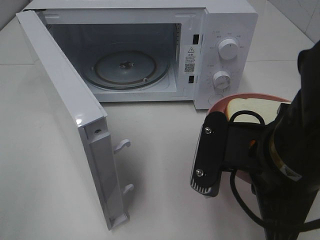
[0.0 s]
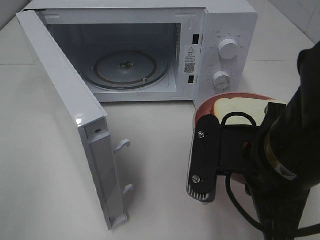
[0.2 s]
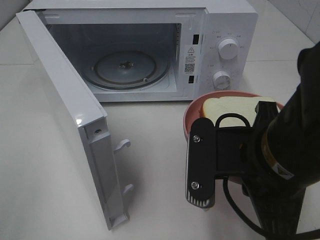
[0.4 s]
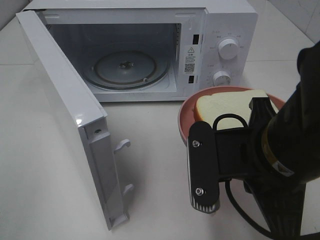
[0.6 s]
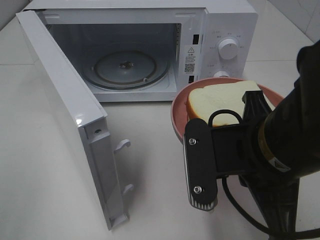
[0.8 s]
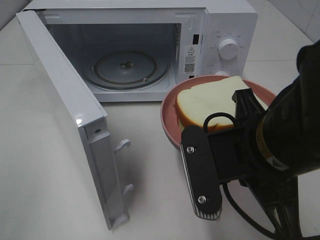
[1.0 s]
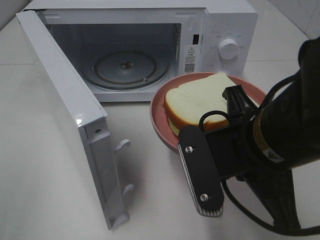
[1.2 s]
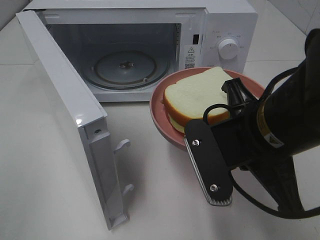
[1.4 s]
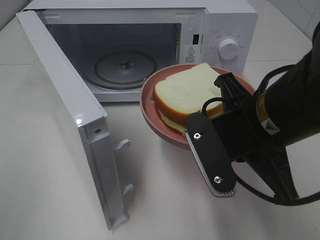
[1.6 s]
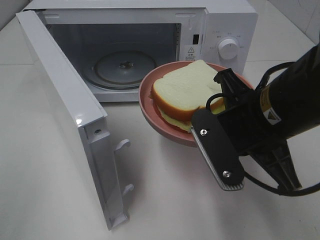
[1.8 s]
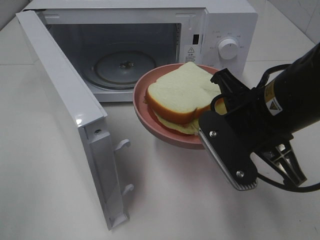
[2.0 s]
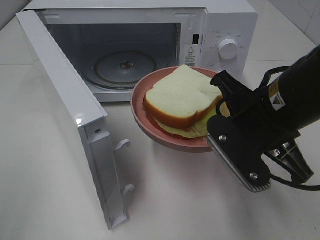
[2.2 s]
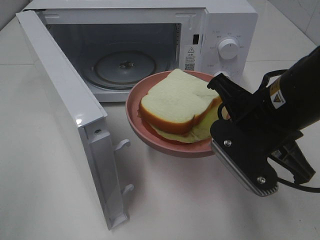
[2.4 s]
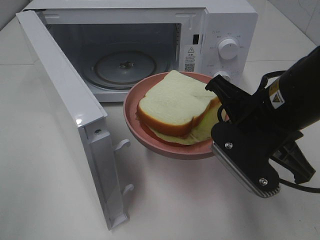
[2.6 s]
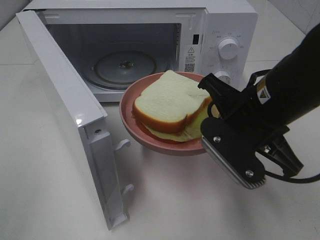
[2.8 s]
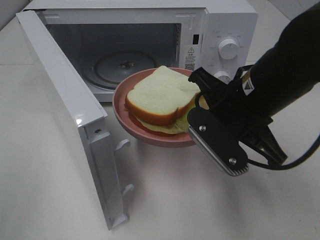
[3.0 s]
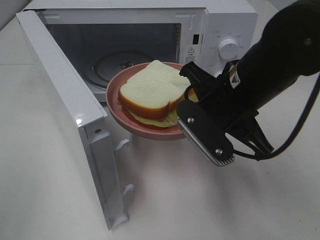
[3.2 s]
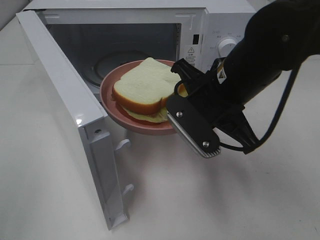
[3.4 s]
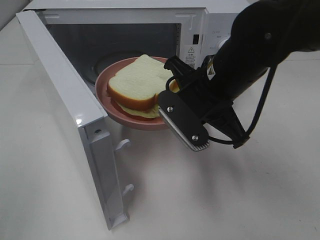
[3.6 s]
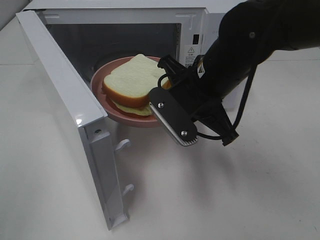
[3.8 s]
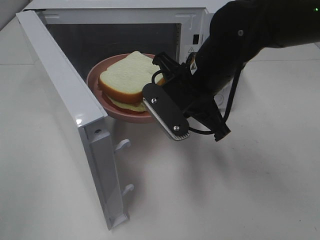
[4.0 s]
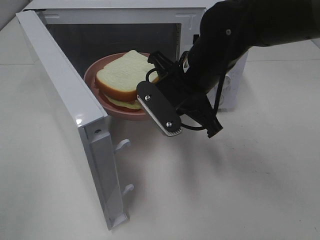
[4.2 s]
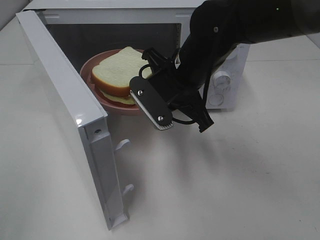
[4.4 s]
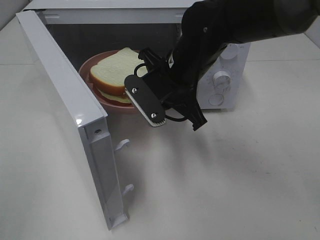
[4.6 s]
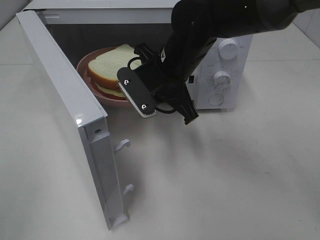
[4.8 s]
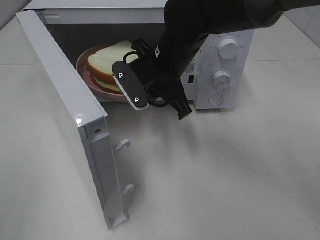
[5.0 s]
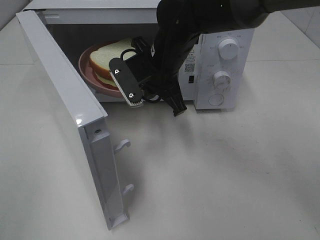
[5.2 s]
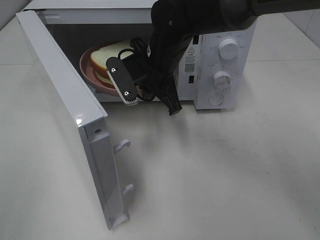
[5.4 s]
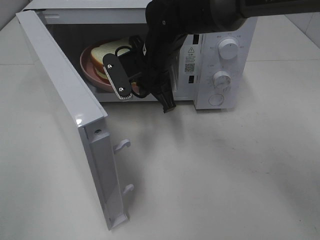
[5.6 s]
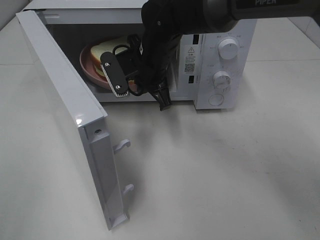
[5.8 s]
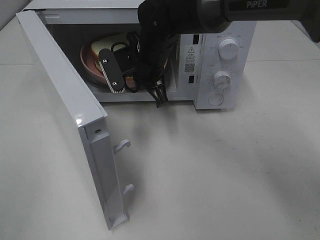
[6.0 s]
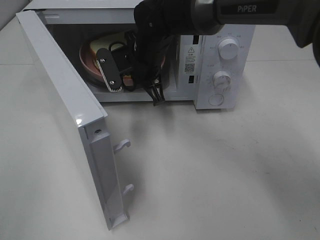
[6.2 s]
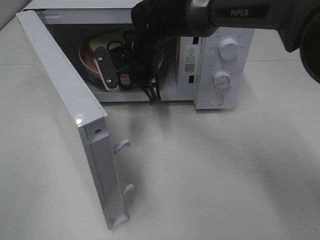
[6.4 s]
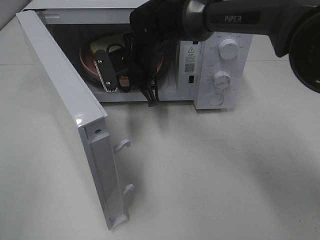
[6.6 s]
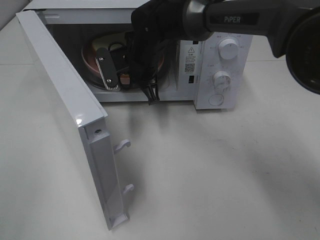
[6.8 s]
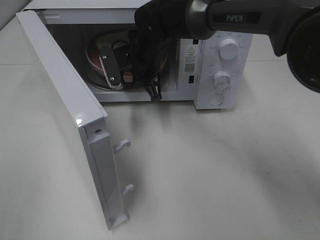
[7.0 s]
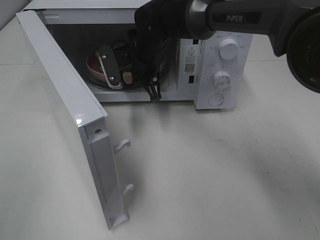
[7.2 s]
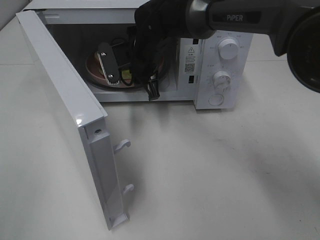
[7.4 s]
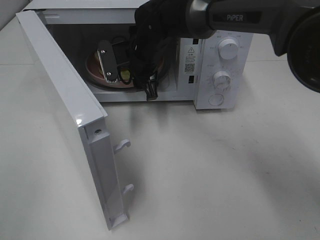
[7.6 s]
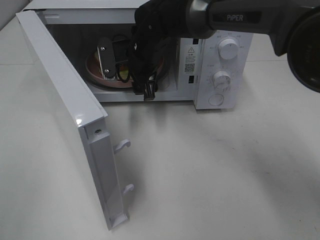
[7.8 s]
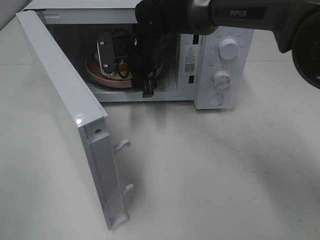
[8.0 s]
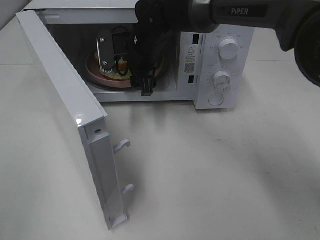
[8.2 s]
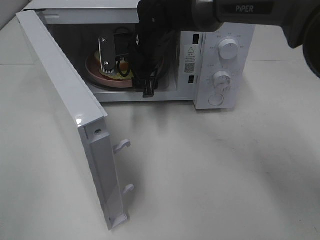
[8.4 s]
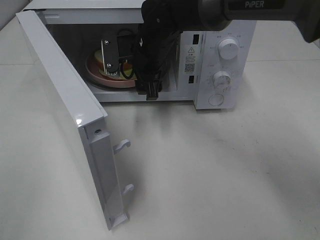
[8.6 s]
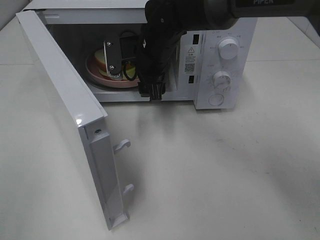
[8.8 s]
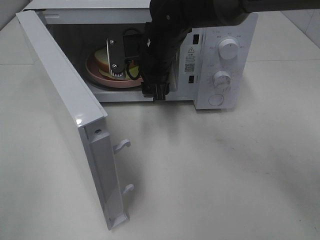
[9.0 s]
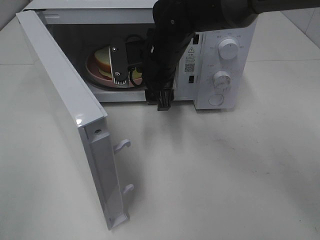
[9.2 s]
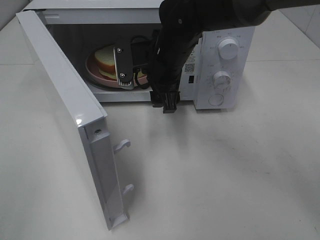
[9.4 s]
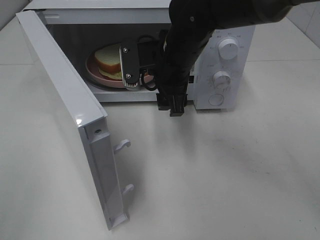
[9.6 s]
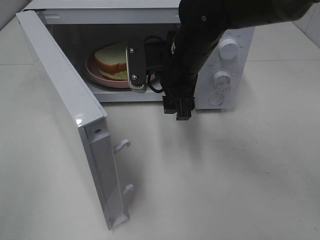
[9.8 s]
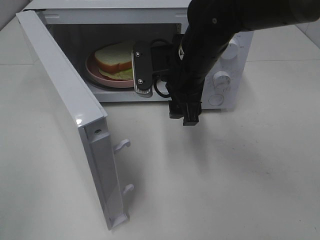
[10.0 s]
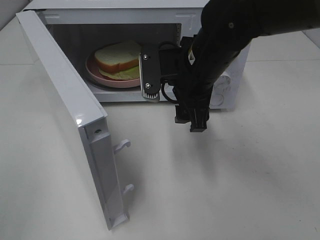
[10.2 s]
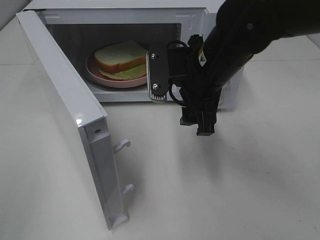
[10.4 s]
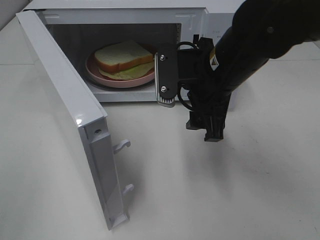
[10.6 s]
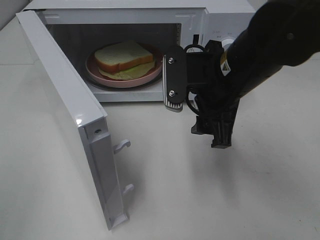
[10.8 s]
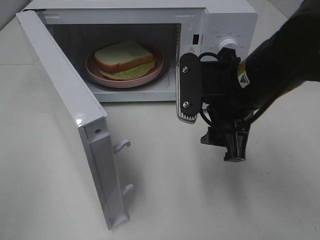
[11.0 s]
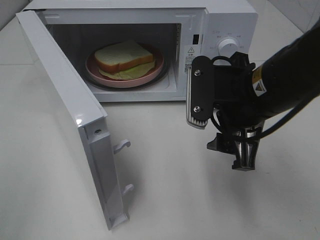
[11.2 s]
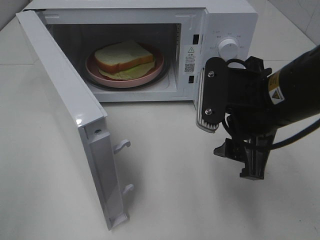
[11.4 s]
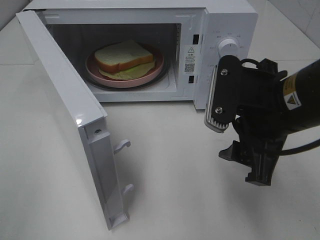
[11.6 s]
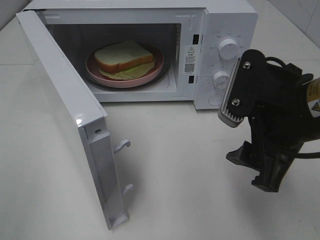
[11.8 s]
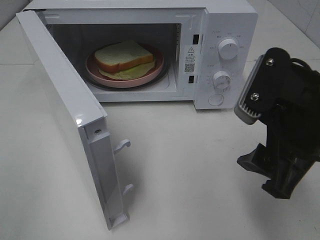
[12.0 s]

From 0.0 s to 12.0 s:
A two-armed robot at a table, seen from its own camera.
Task of the whole recording: Heat Sandwich.
Step, from 0.0 s to 8.6 s: Right hand: place the plate in the microwave.
From 3.0 s to 4.4 s: The right gripper goes approximately 10 cm forward and to the left.
From 4.4 s to 6.0 s: The right gripper heads forward and to the left, covering approximately 10 cm.
From 6.0 s to 7.6 s: The right gripper opens up.
From 7.6 s to 9.0 s: The grippers make only small movements.
From 9.0 s to 10.4 s: The right gripper moves backward and to the right, roughly 10 cm.
From 10.4 s to 12.0 s: The right gripper is displaced backward and to the right by roughly 15 cm.

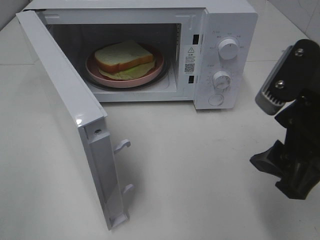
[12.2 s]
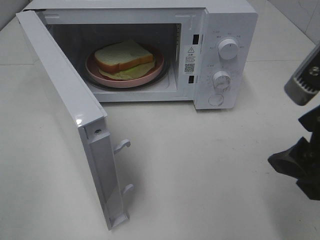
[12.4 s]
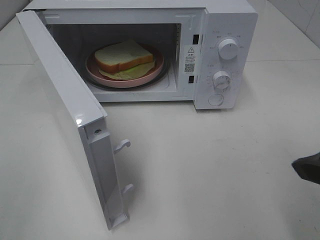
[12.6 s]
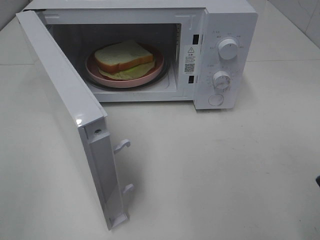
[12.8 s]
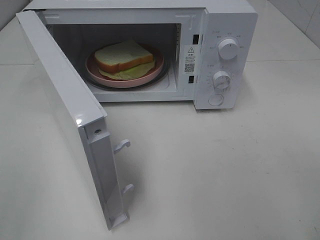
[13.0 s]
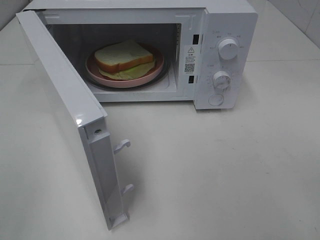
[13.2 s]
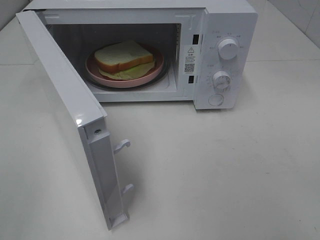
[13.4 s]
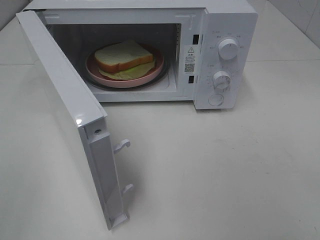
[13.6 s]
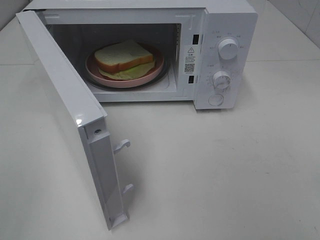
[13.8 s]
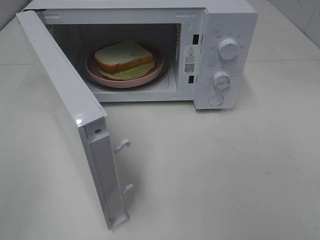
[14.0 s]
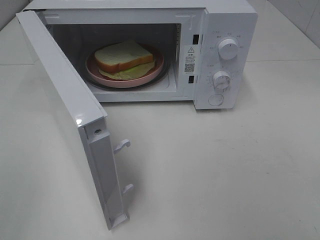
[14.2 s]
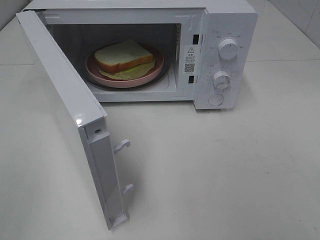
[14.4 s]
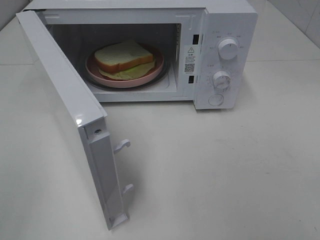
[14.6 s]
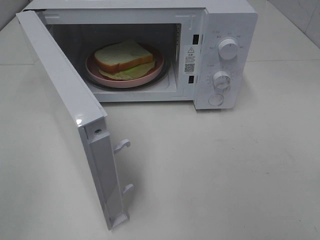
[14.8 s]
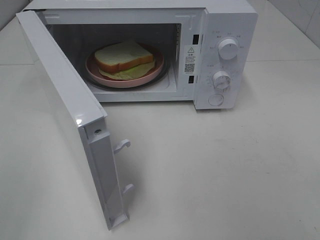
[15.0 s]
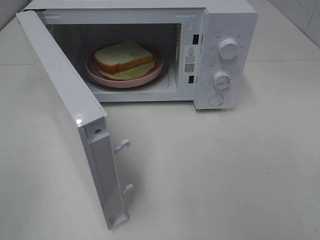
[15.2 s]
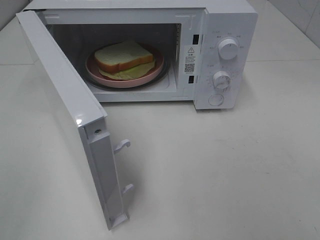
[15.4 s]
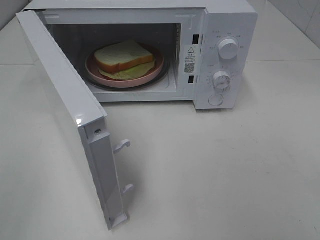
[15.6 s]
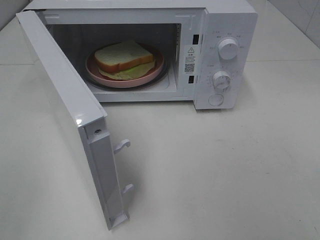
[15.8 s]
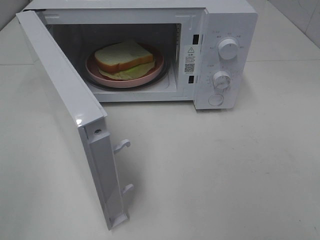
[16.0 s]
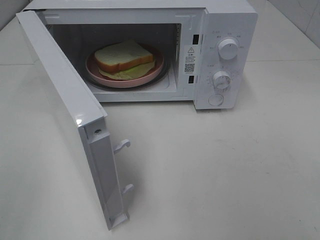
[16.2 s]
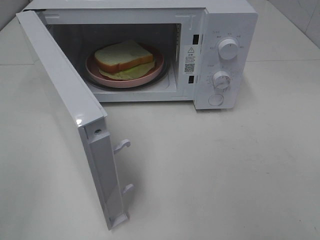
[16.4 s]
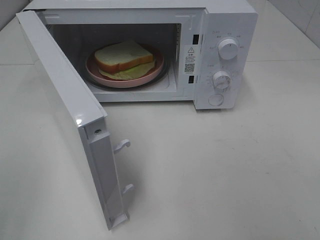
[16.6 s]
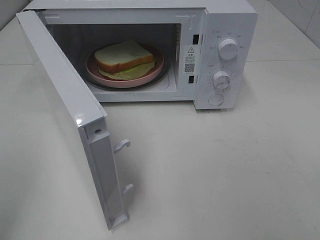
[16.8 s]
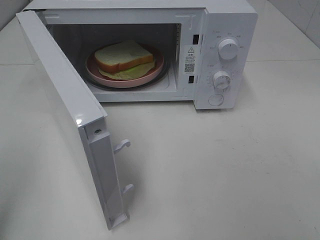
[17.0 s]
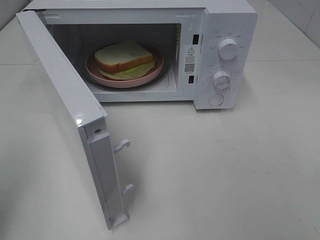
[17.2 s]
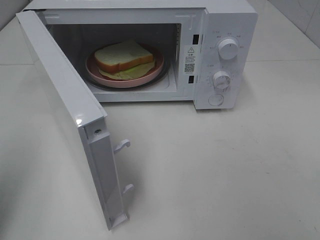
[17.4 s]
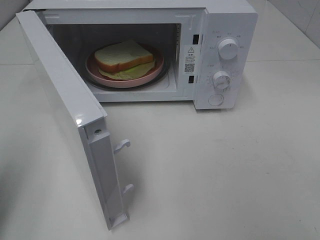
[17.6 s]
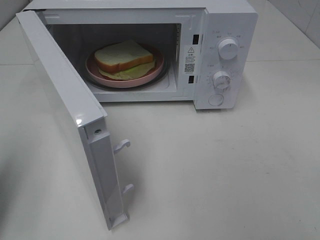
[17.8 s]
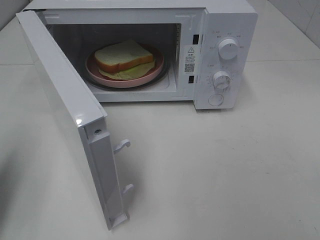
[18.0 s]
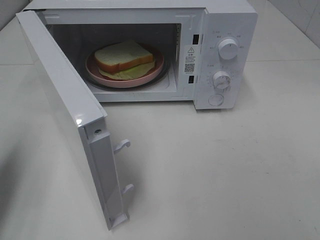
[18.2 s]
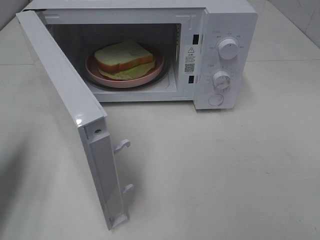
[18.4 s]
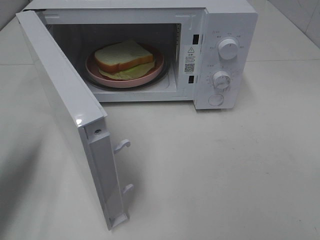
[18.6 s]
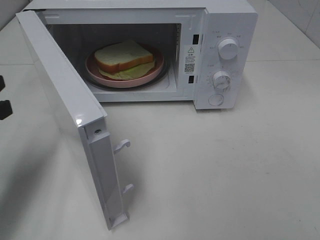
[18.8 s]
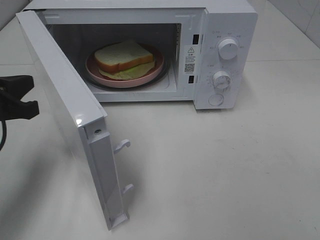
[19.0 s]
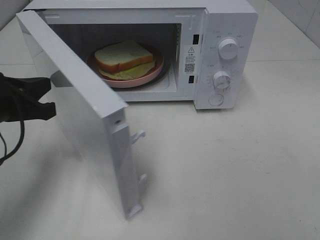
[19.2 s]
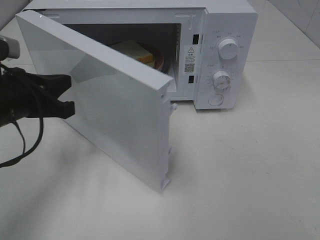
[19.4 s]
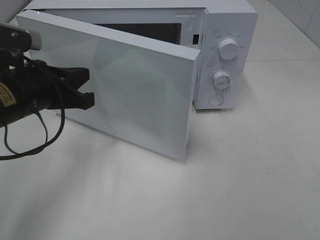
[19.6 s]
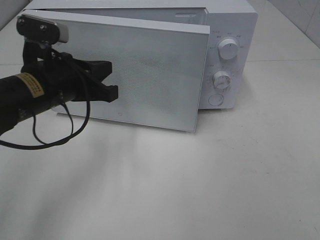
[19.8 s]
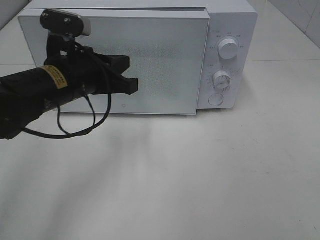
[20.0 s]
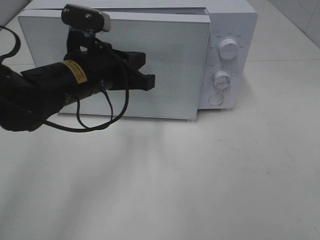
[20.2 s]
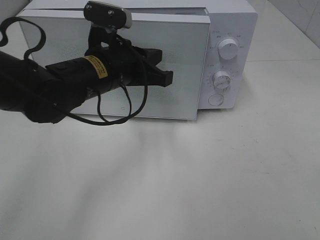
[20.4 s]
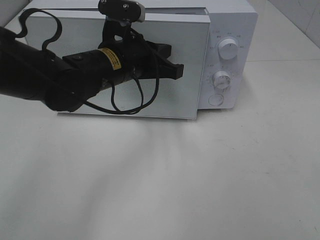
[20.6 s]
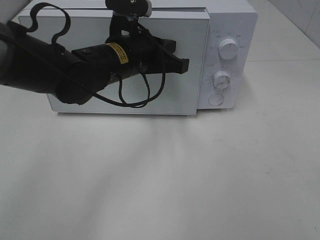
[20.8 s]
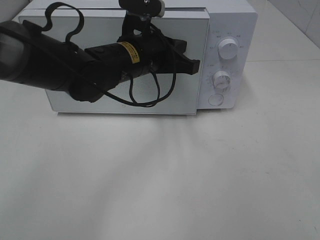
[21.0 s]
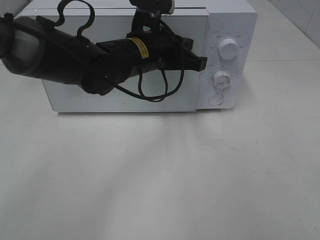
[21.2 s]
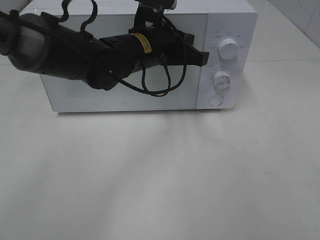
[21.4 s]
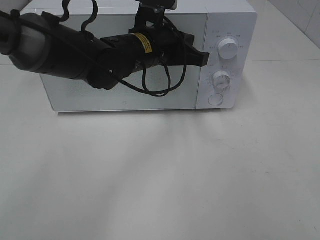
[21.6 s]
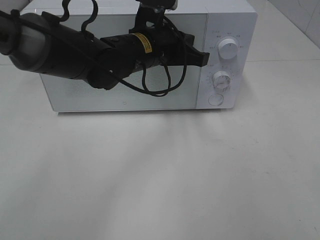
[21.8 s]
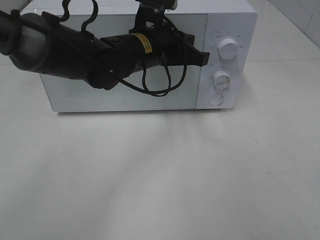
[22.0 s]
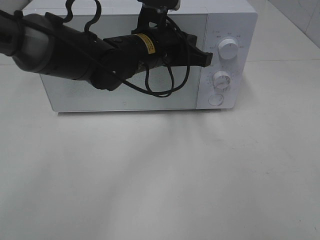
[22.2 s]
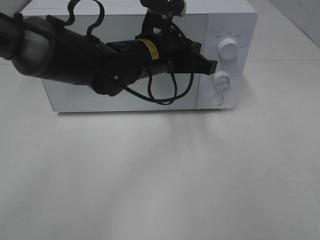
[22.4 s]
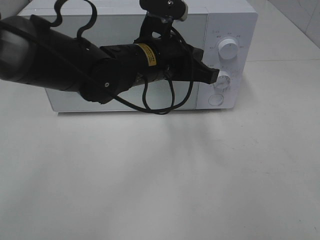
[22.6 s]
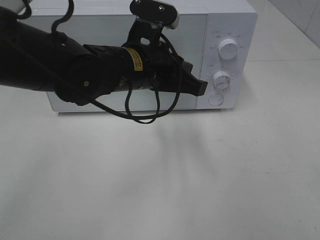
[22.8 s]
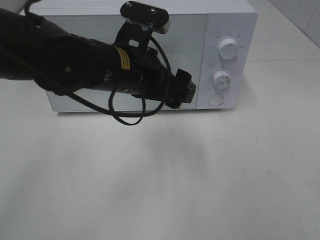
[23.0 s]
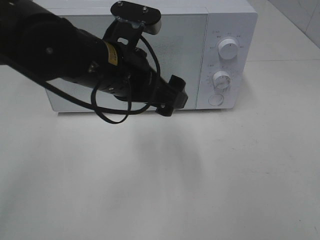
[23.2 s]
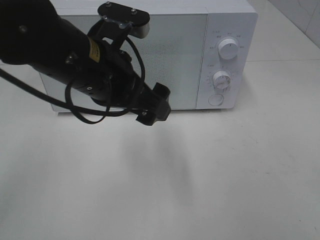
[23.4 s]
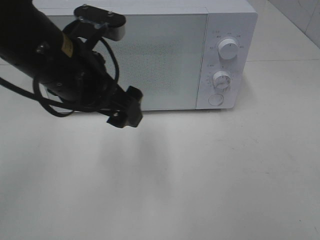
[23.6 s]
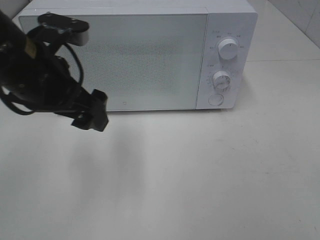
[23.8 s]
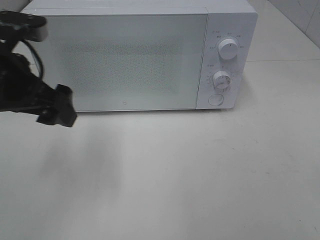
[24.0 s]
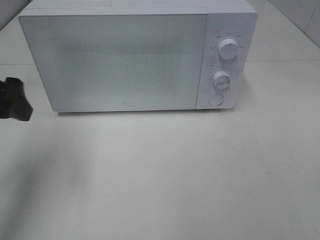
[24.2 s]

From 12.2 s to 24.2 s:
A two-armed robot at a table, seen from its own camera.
Task of the whole recording: Heat Sandwich.
Step, from 12.2 s to 22.8 s: Left hand: close the microwave door.
From 12.2 s to 13.8 s: The right gripper heads backward and to the right, covering roughly 20 cm.
From 16.6 s to 18.2 s: The left gripper heads forward and downward, covering approximately 15 cm, and closes up.
From 18.2 s to 19.8 s: The left gripper is displaced to the right and forward by some 20 cm.
From 19.8 s to 21.2 s: The left gripper is displaced to the right and forward by roughly 15 cm.
From 21.2 s to 22.6 s: The grippers make only small movements.
From 22.6 s to 24.2 s: The left gripper heads to the left, covering roughly 25 cm, and opens its fingers.
